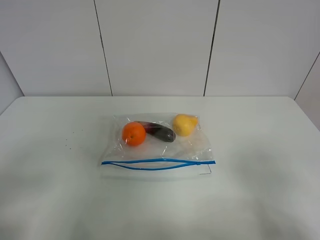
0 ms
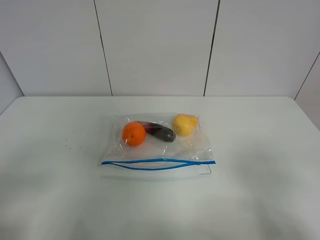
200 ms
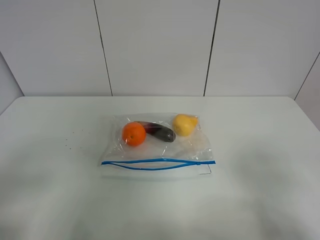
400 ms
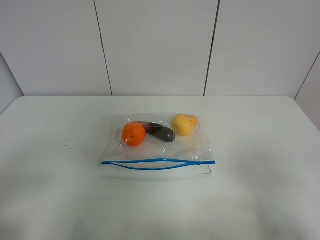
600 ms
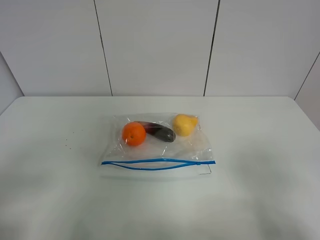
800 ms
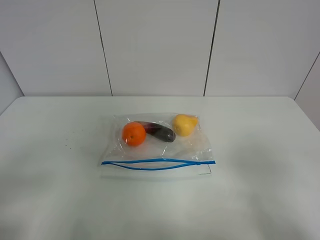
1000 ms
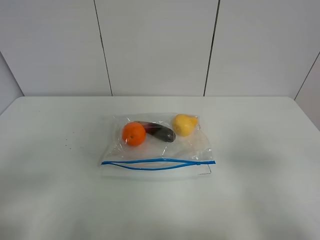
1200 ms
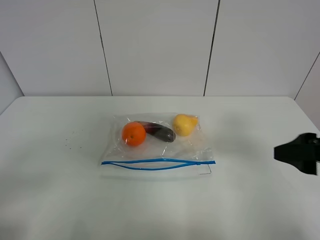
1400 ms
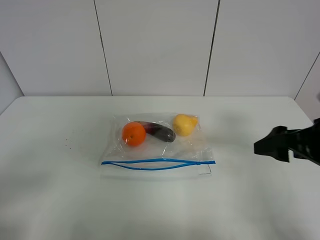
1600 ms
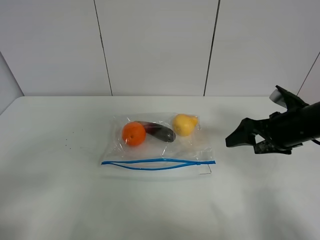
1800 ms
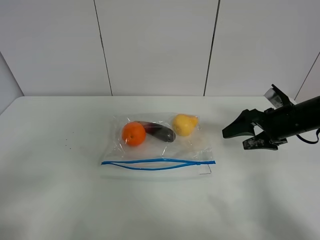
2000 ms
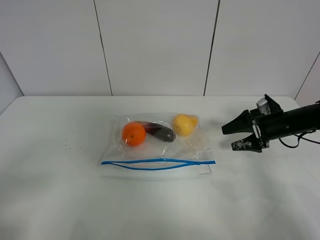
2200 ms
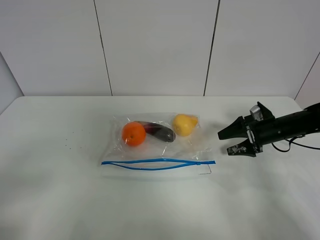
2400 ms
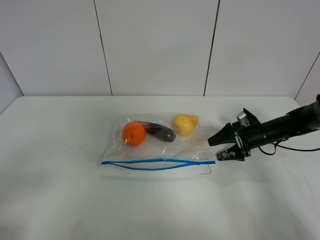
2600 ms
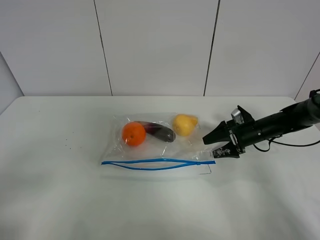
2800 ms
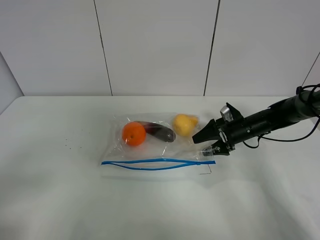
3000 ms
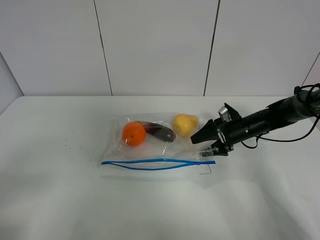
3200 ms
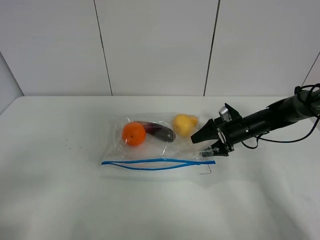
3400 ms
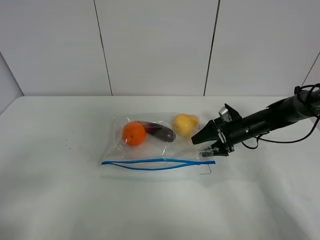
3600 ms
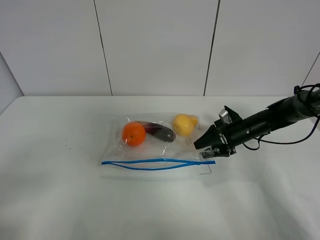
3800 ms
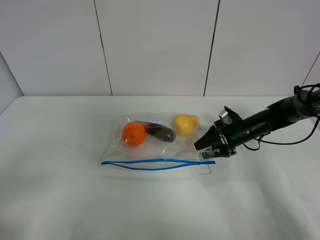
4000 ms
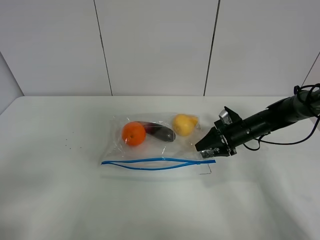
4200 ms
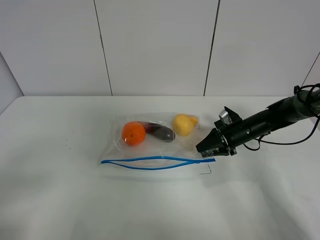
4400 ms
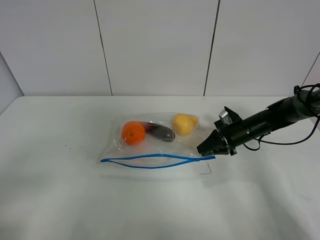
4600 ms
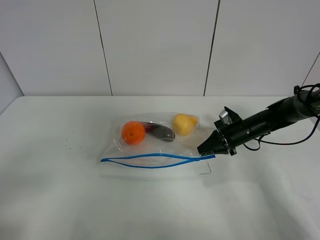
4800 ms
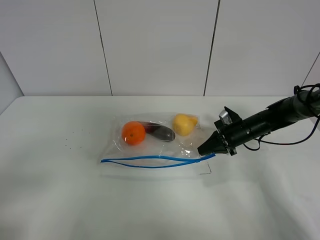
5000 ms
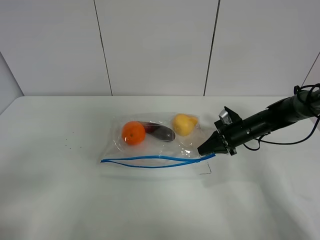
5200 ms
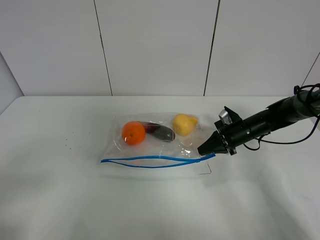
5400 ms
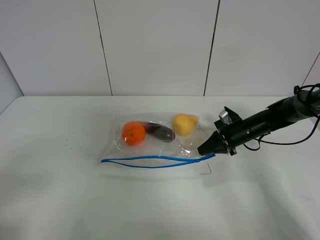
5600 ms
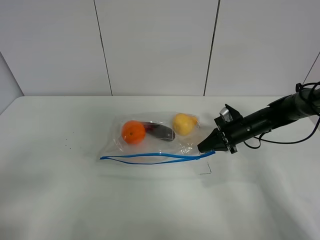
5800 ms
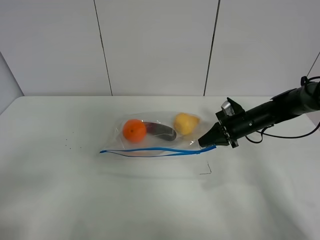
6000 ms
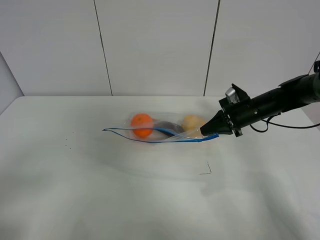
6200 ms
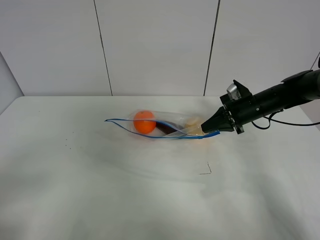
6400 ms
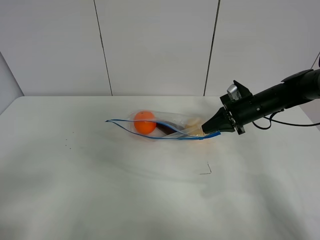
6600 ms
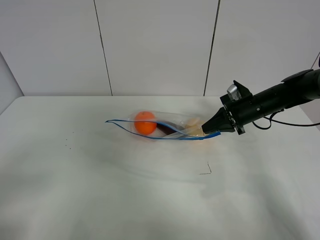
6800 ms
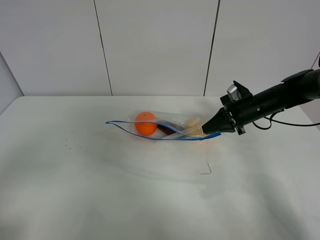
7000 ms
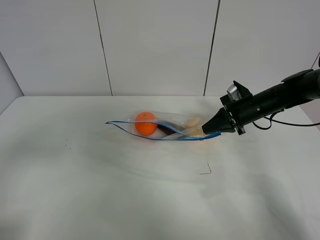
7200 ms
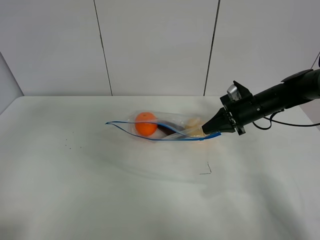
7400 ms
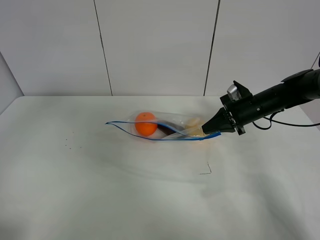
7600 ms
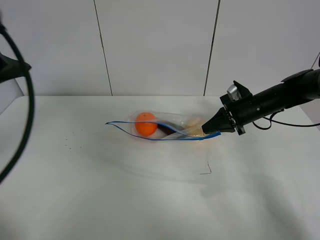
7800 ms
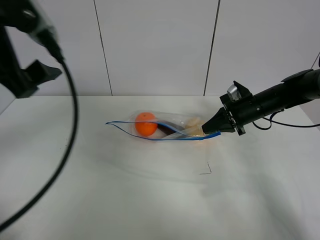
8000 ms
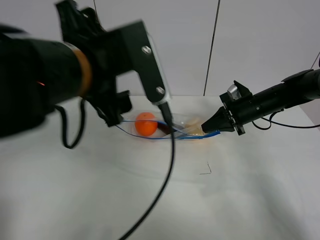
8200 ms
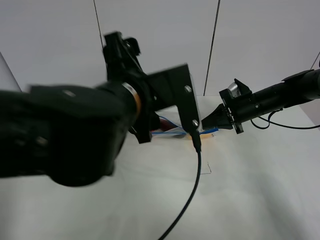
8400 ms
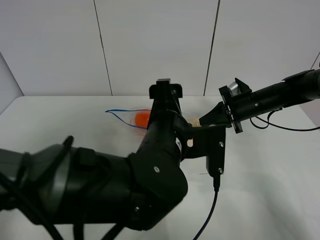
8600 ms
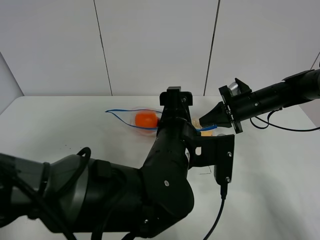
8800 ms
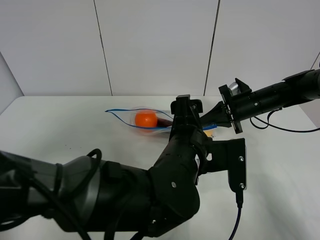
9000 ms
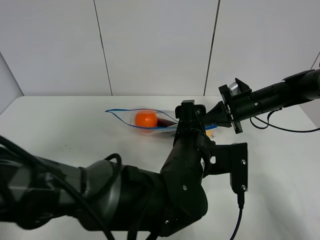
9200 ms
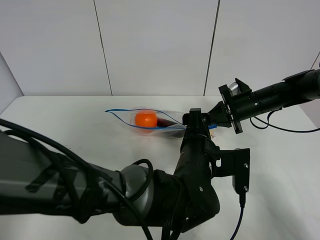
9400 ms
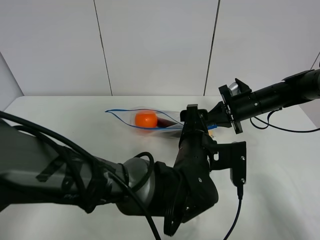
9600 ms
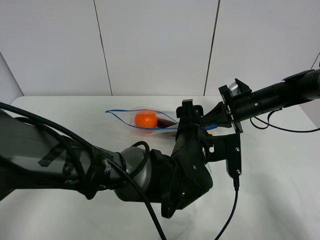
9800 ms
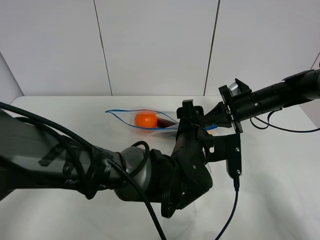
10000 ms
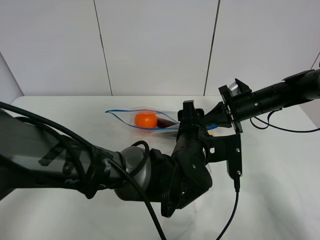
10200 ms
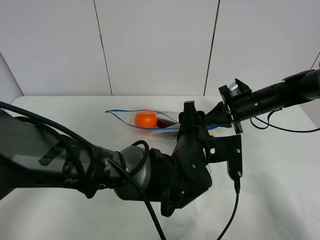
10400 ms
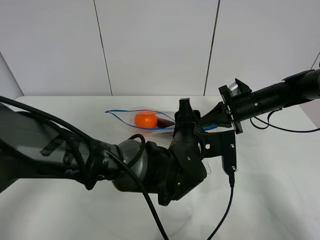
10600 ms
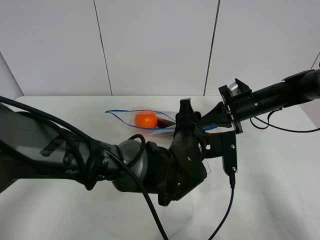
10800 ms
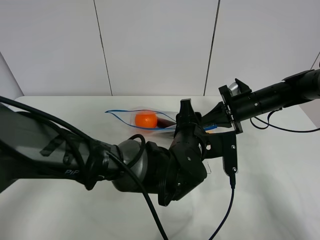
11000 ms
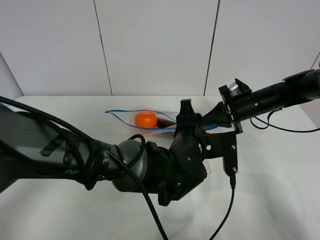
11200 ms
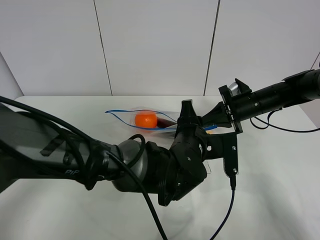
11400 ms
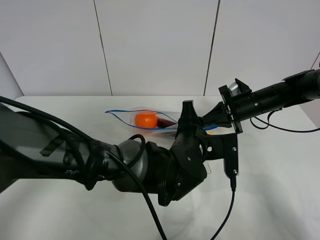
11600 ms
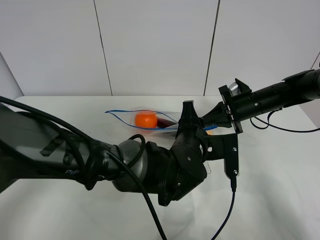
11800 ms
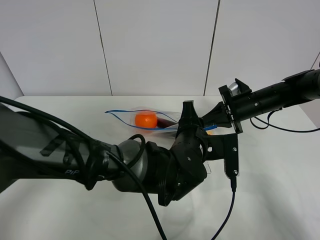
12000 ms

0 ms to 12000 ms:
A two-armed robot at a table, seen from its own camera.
Step, 0 ms to 4800 ms: Grasp the fruit bag with right gripper.
Step, 5000 ms to 6400 ms: Lift the fruit bag with your right gripper.
0 ms to 1600 ms: The right gripper is displaced forward by roughly 20 cm.
1600 ms to 3000 ms: The right gripper is displaced forward and downward by about 25 cm.
3000 ms to 4400 ms: The right gripper closes its fingers.
4400 ms to 6000 ms: The right gripper closes up.
6000 ms to 7600 ms: The left gripper travels forward and upward by some 20 cm.
7600 ms to 9000 ms: The left gripper heads to the right and downward, covering roughly 40 cm.
9000 ms to 10400 ms: The left gripper changes place by roughly 5 cm.
10400 ms to 12000 ms: Both grippers stay about where they are.

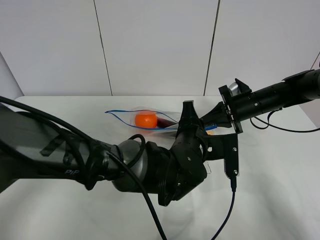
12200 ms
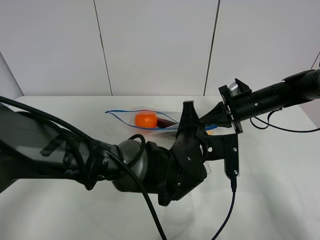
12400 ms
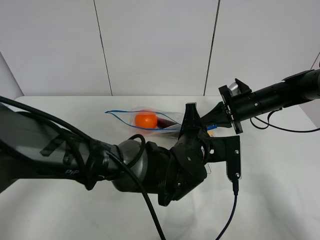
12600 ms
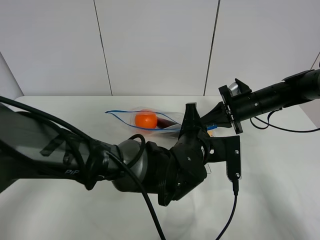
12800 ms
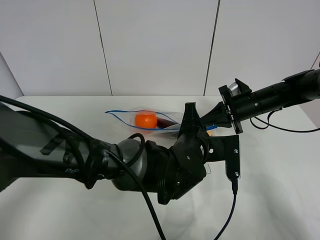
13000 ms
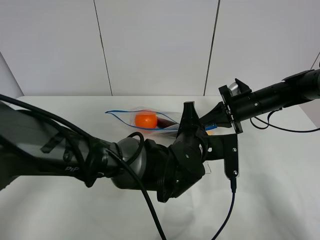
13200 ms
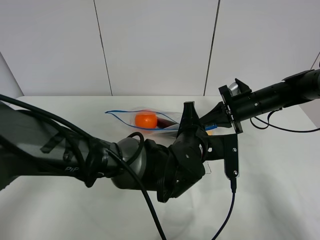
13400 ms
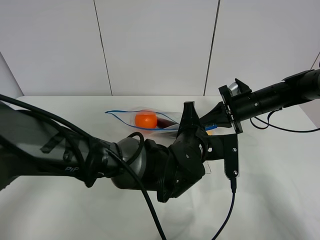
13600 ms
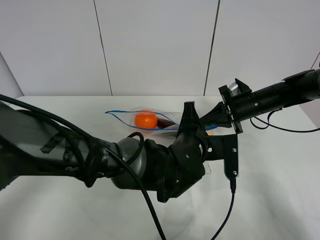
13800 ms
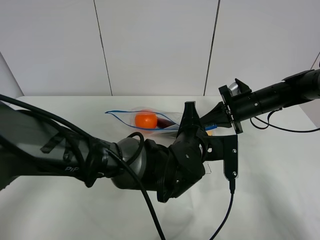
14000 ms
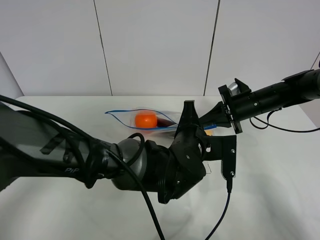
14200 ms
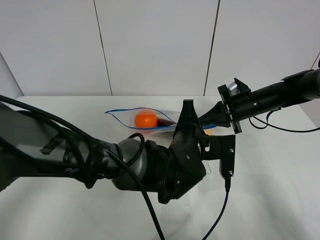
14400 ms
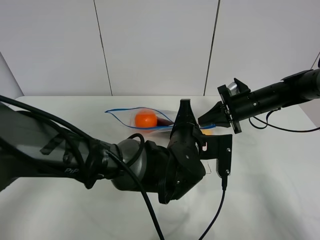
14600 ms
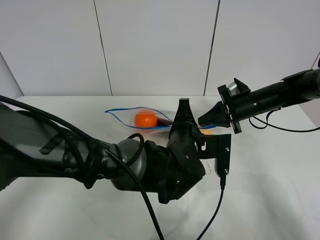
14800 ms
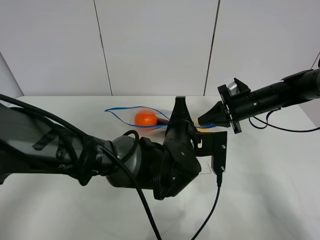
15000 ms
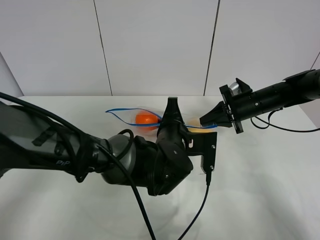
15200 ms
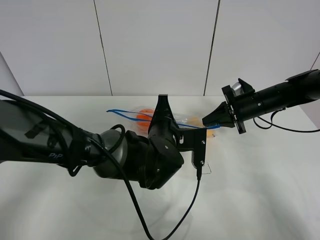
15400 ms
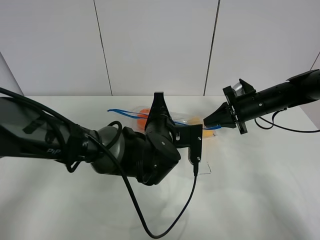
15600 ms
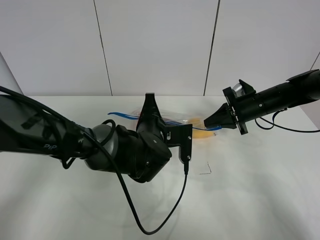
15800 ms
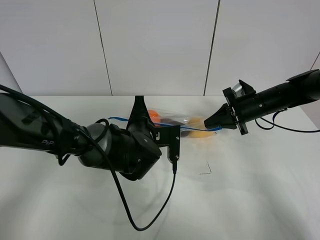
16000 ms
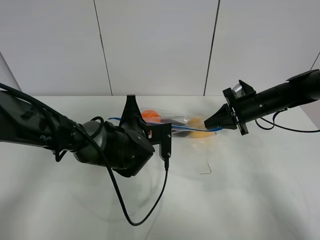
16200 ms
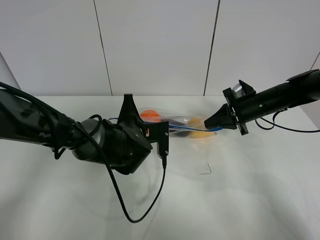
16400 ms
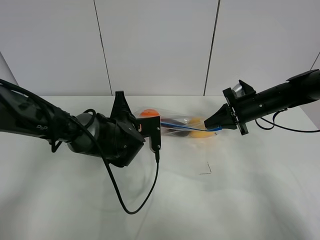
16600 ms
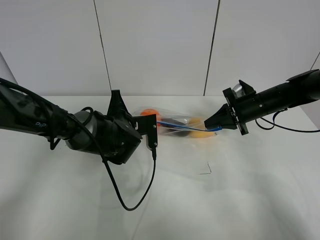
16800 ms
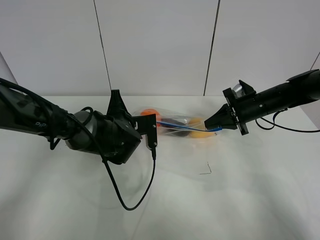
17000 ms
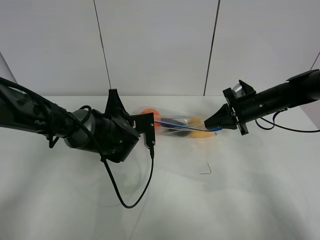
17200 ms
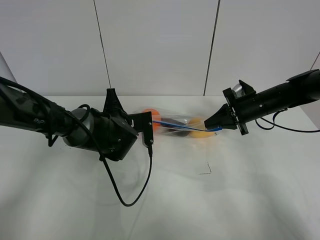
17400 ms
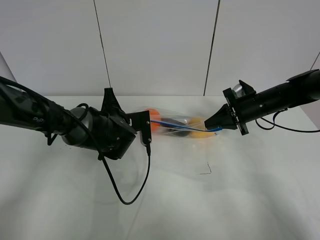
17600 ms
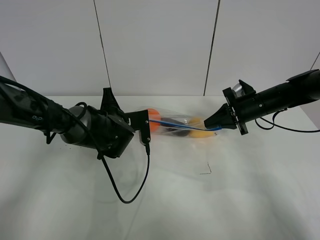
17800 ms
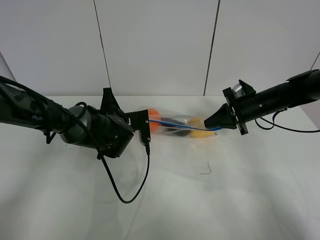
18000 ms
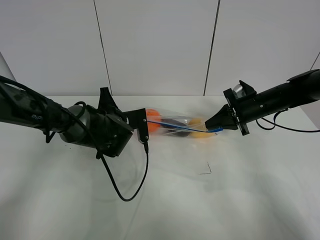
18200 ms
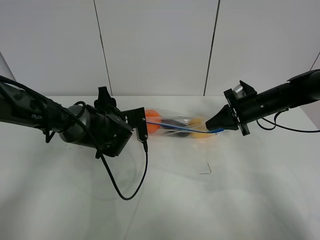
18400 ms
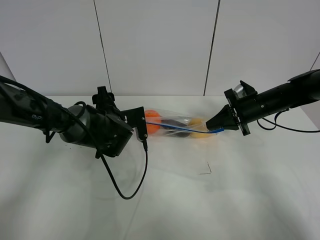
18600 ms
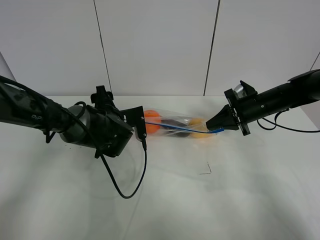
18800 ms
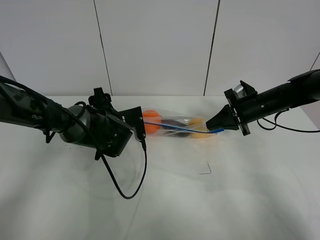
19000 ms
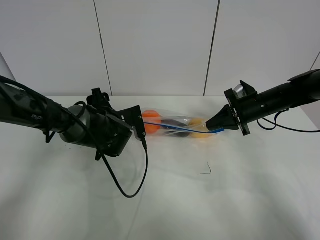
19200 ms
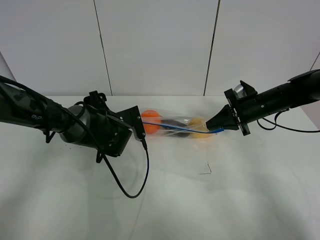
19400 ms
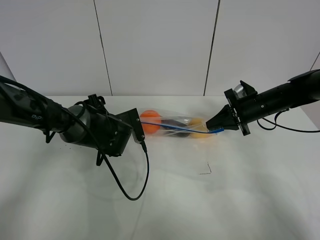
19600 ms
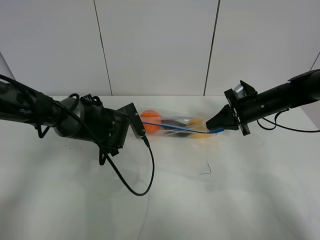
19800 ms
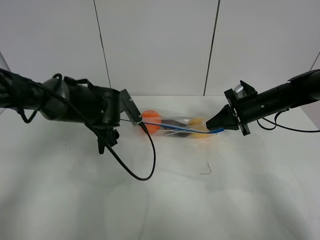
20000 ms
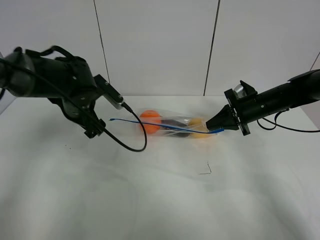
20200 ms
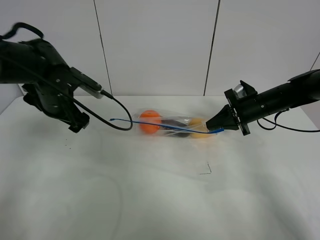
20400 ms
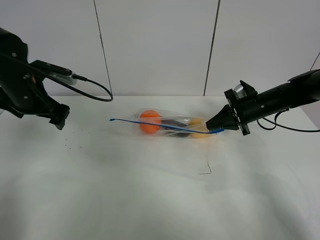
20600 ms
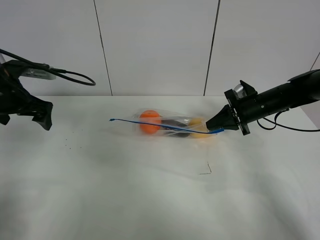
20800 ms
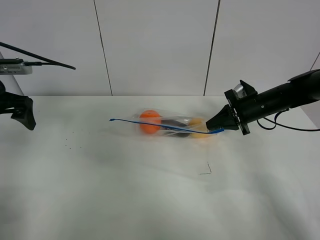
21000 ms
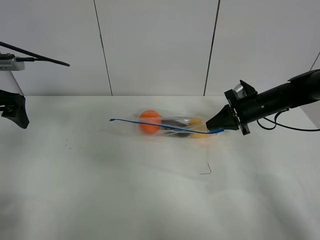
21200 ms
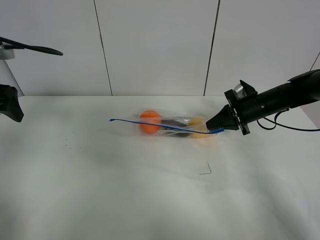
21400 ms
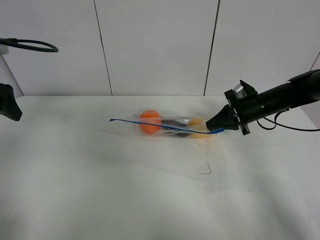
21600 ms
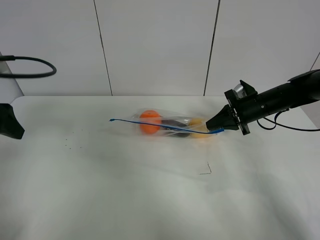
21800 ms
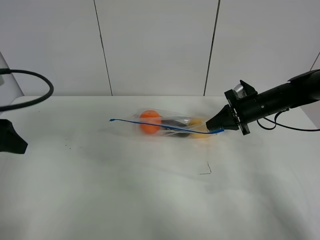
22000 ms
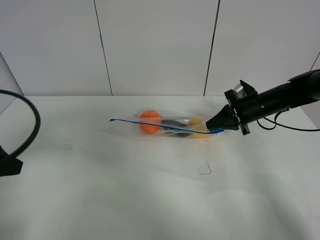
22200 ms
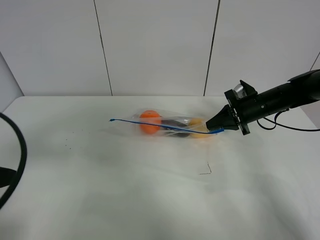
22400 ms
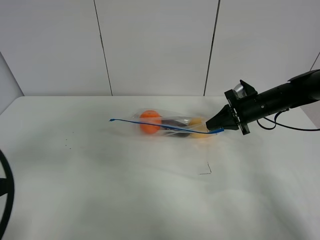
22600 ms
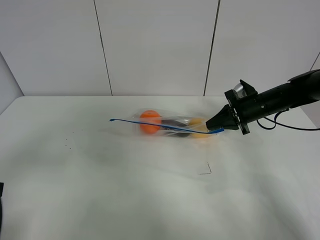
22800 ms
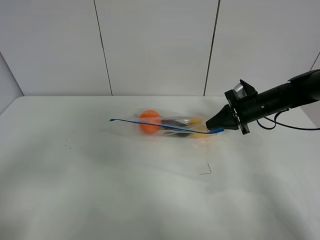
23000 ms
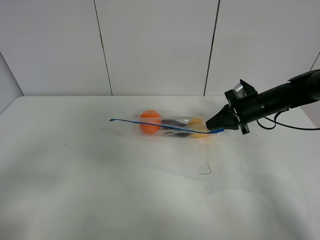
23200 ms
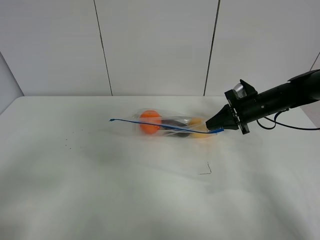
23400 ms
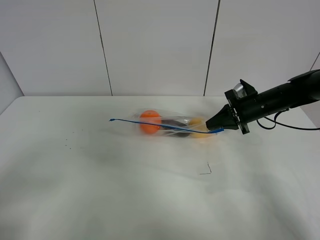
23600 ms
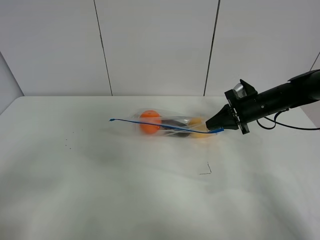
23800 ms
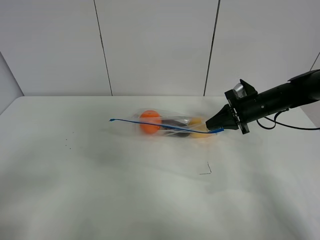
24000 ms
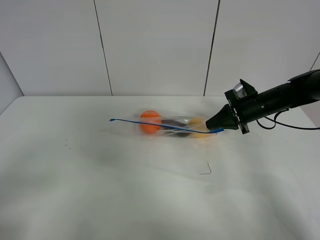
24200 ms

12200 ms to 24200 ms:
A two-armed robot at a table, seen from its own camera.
Step, 12200 ms to 18600 ms: Pull the fruit bag with left gripper.
12200 ms to 13800 ms: Both grippers stay put.
13800 ms to 15200 ms: The grippers move only a little.
15200 ms to 16600 ms: The left gripper moves to the left and forward, approximately 10 cm.
16600 ms to 18200 ms: The grippers stay close to where they were, moving slightly.
18200 ms to 19800 ms: The left gripper opens its fingers.
19800 ms to 21200 ms: The left gripper shifts approximately 30 cm to the left and upward.
21200 ms to 22600 ms: The left gripper moves backward, roughly 20 cm.
22600 ms to 24200 ms: The left gripper goes approximately 5 cm backward.
